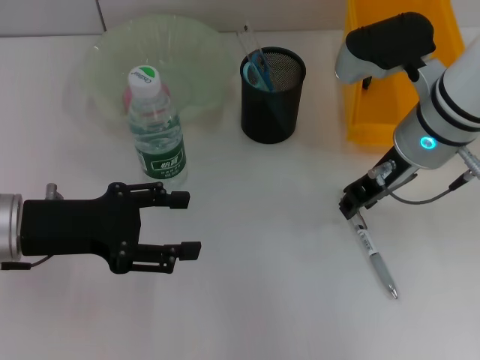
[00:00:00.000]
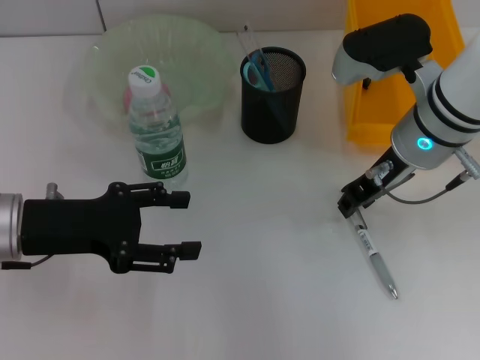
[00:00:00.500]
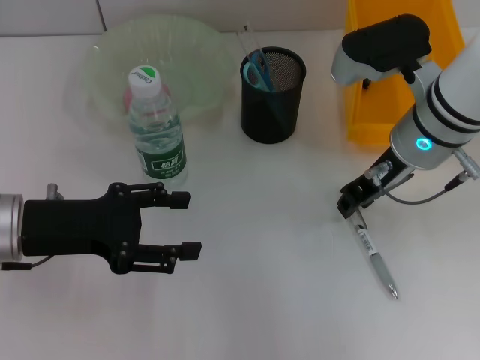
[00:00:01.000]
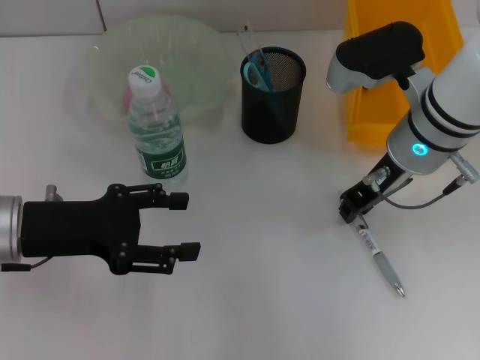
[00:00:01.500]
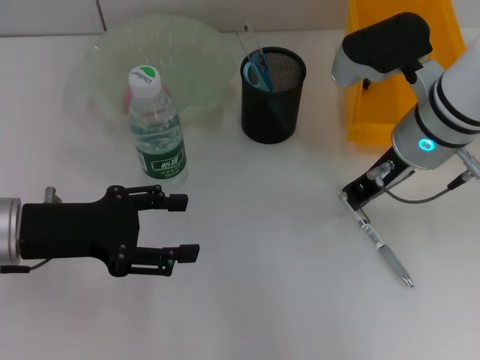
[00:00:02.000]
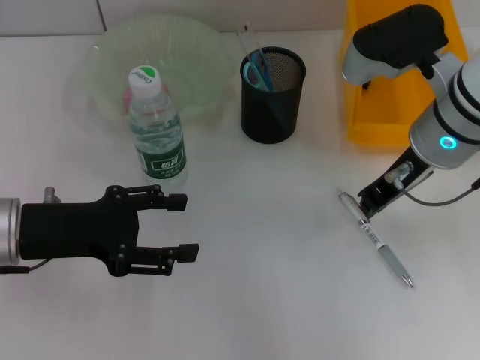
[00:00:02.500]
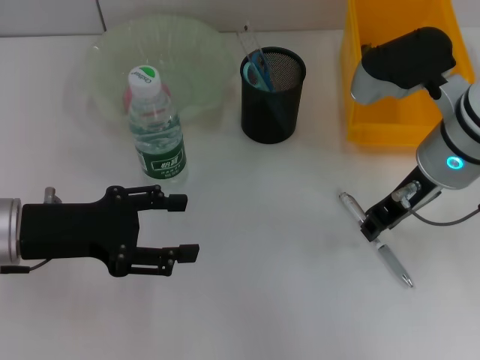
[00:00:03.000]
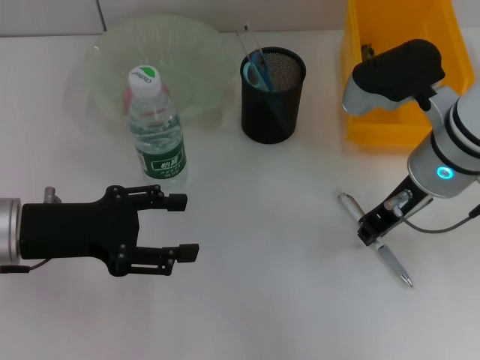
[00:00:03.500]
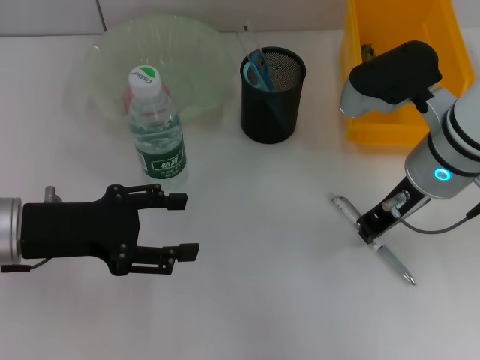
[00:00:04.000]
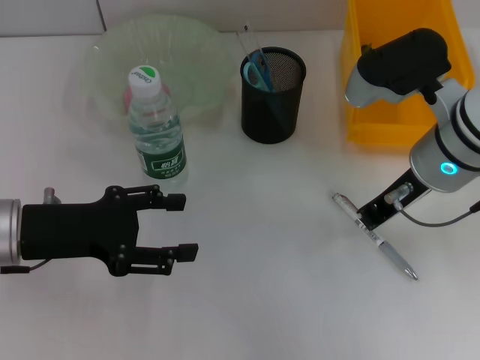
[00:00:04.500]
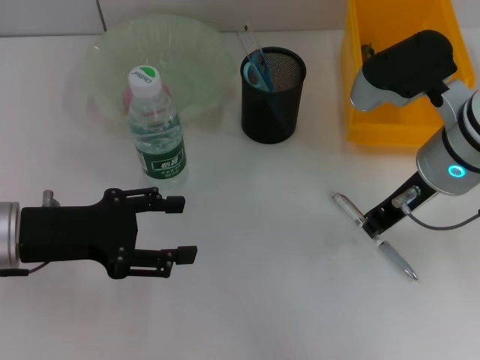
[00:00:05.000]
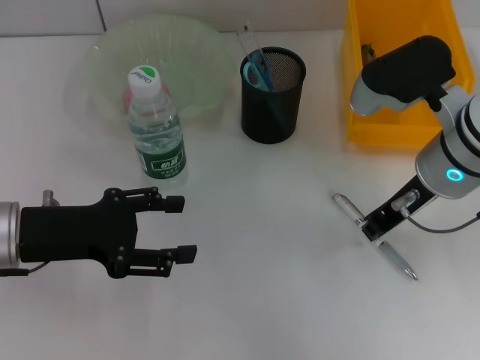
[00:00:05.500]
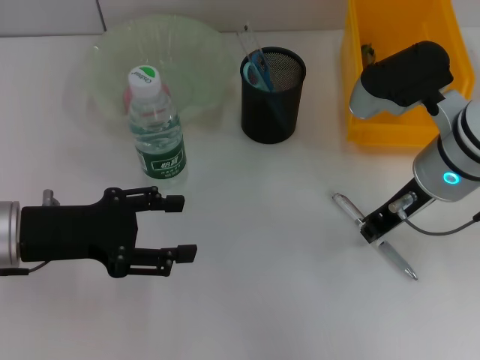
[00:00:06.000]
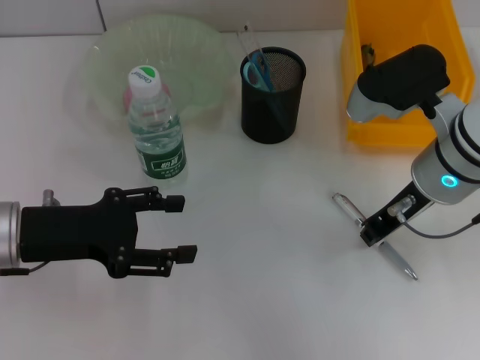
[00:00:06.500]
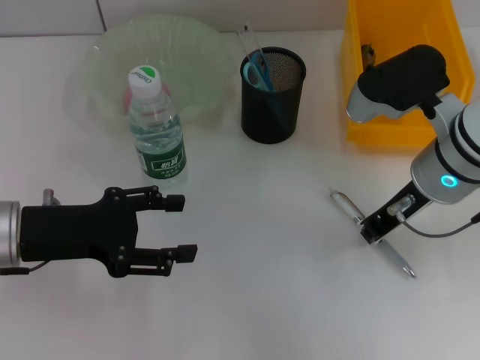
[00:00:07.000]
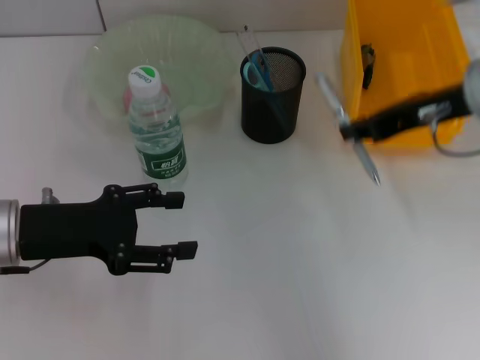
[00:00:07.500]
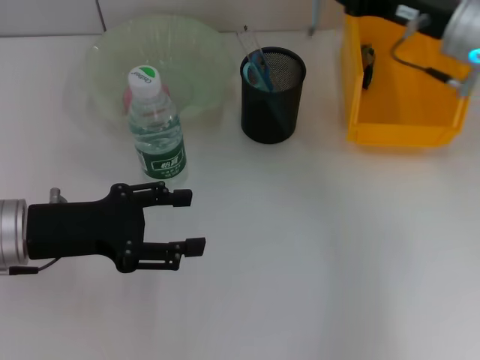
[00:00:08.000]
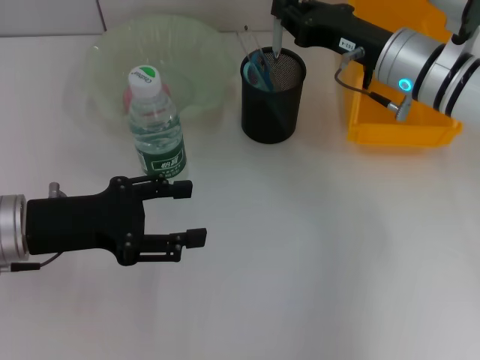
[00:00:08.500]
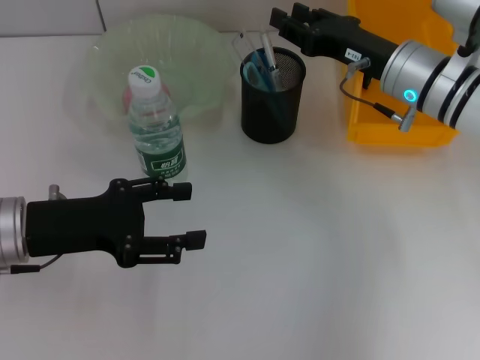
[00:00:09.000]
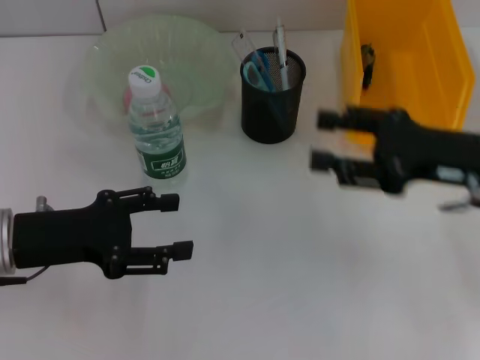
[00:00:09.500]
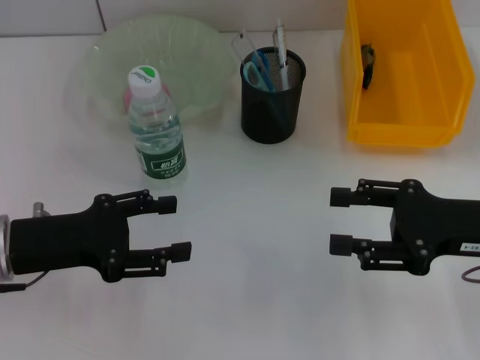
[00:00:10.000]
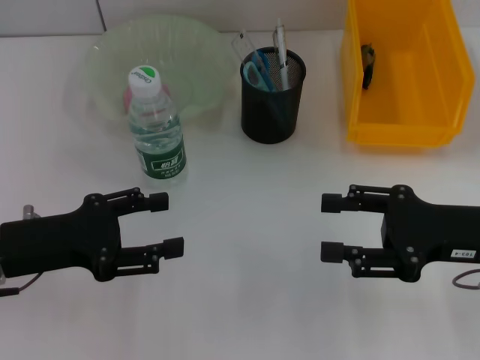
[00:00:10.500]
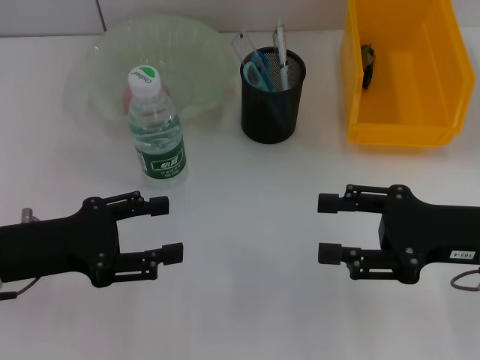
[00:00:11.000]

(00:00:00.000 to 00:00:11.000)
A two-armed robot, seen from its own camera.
Step, 00:00:00.000 - 00:00:06.500: Grab the gray spring-action pen with the right hand.
Step, 00:00:07.000 - 00:00:09.000: Place the gray spring-action pen into the pen holder with the right hand.
00:00:00.000 - 00:00:02.000: Both grippers stay put.
00:00:02.000 - 00:00:03.500: There are only small adjustments of the grippers.
00:00:03.500 - 00:00:05.500: Both grippers stay about where they are.
00:00:05.500 - 00:00:07.500: The right gripper shifts about 5 cm upward.
00:00:07.500 - 00:00:09.000: The right gripper goes approximately 10 cm downward and forward.
00:00:09.000 - 00:00:11.000: The right gripper goes some 15 cm backward and to the right, and opens.
